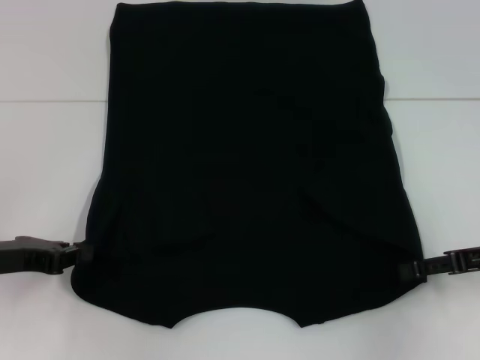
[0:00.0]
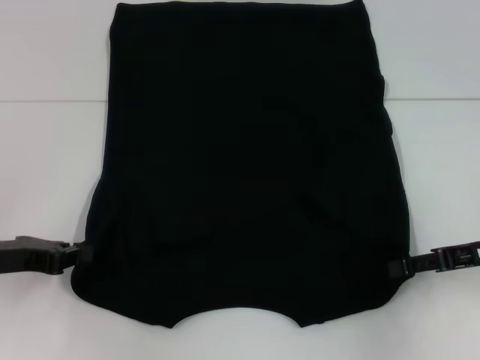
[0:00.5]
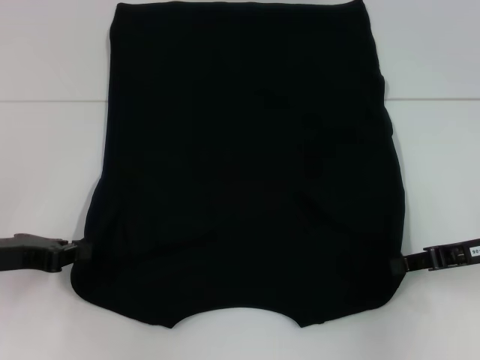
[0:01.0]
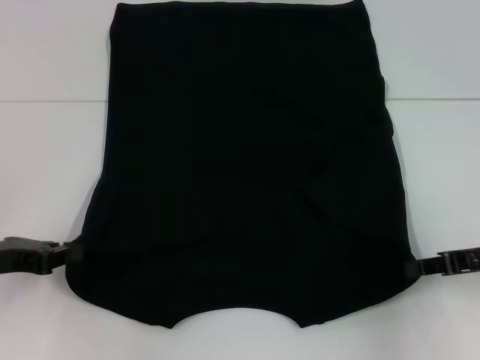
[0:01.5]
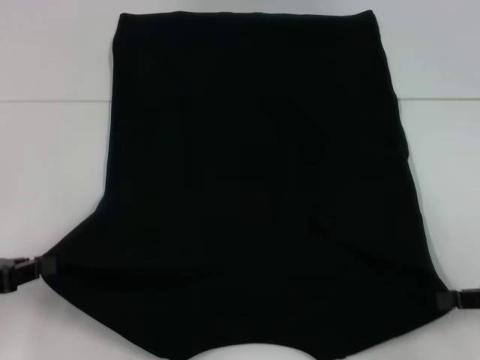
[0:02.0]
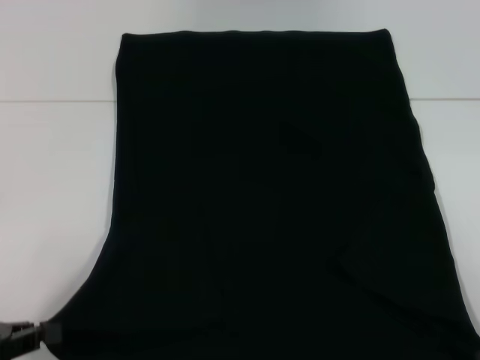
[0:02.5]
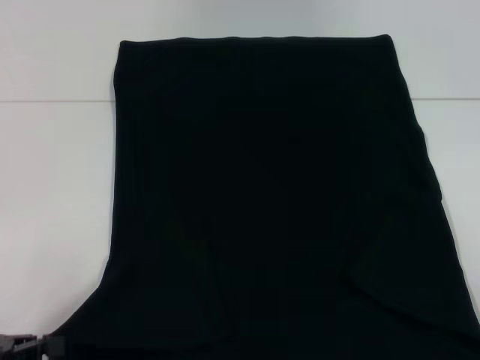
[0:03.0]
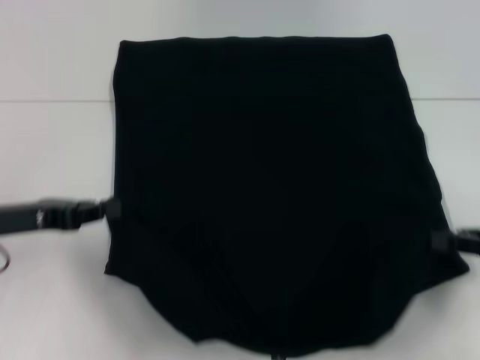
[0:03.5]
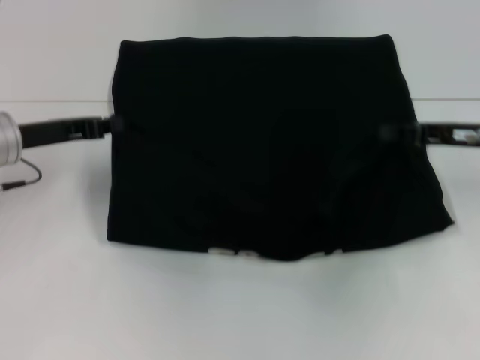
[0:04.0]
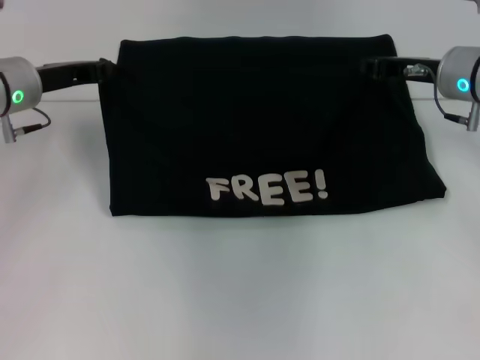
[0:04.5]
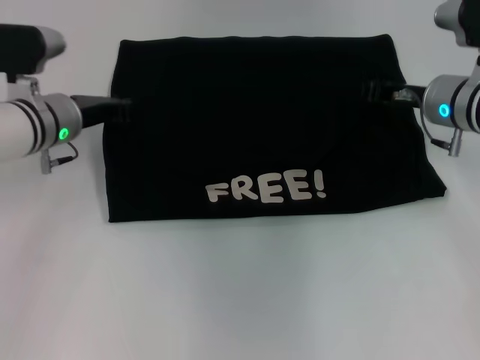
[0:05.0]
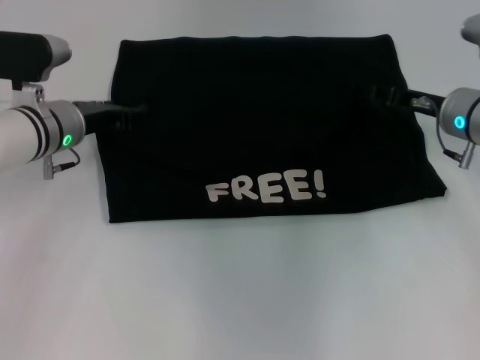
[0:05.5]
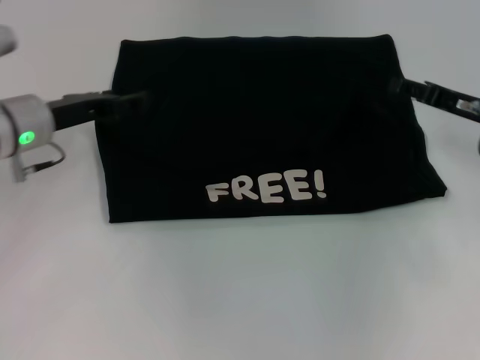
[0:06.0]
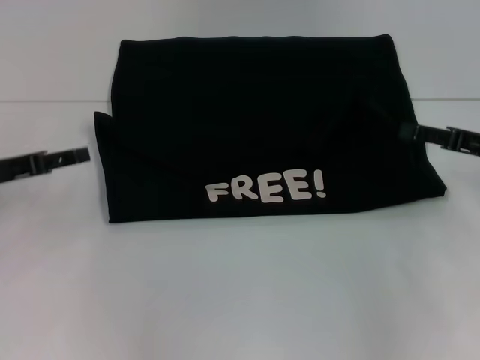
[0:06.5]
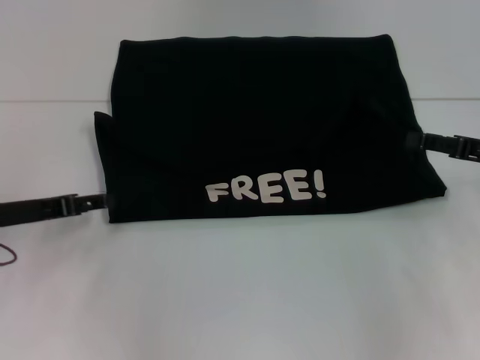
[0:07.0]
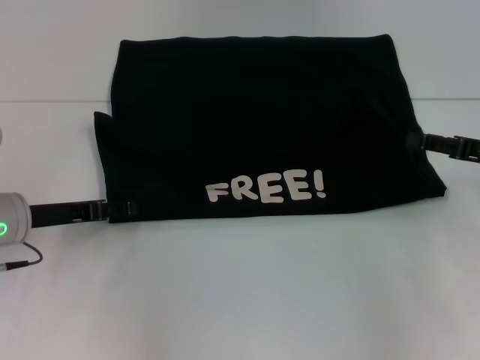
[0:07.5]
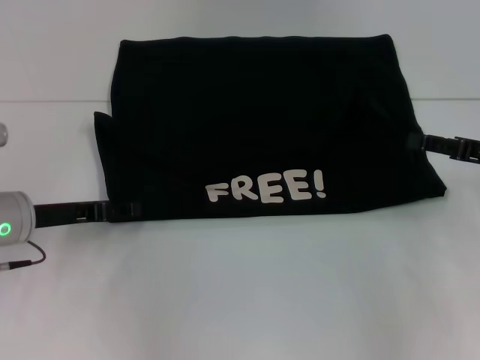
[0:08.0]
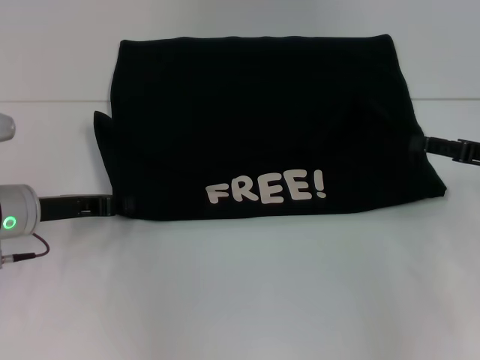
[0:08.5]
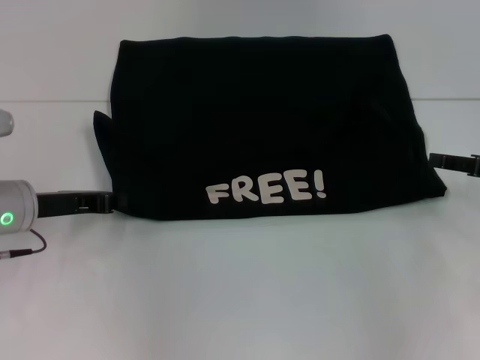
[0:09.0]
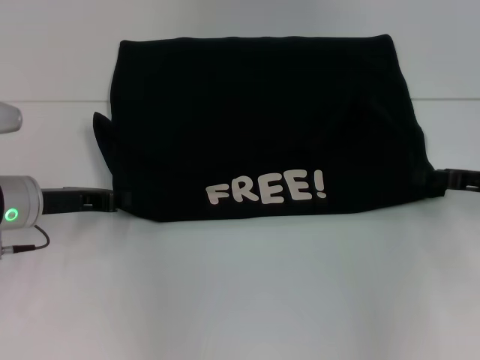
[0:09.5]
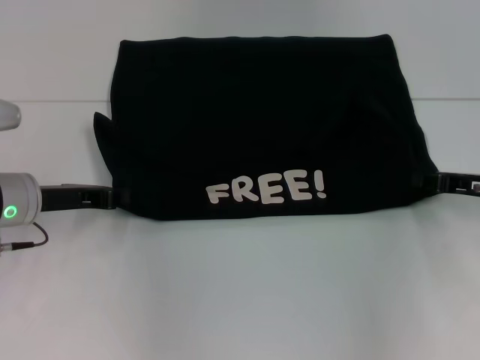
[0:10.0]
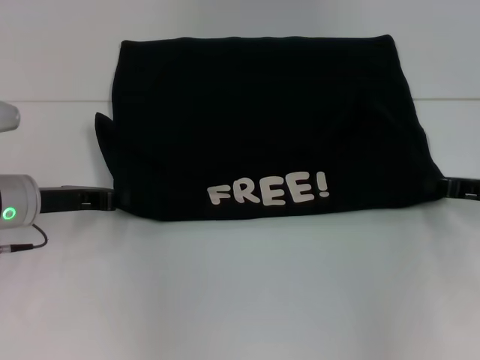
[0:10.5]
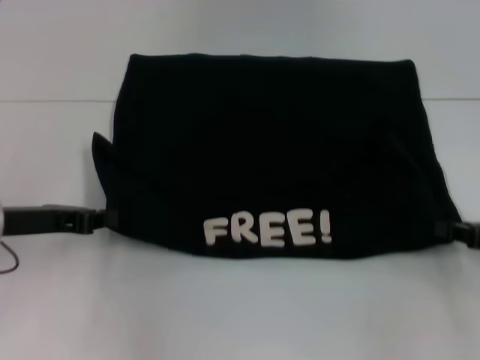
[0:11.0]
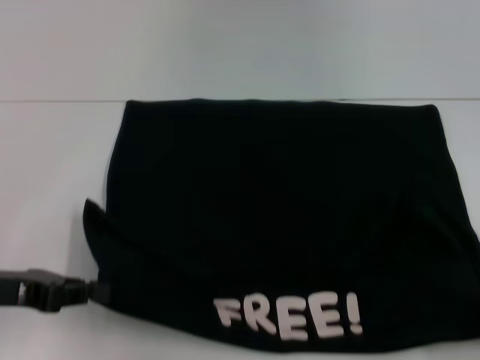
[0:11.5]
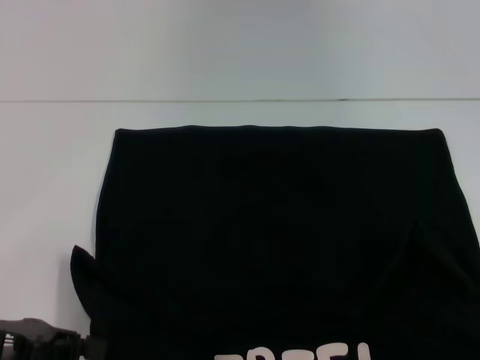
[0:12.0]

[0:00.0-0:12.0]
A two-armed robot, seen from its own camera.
Step, 0:01.0 to 0:05.5: Fold the clothes with your left hand.
Step, 0:01.0 to 0:05.5: Fold the clothes with your right hand.
Step, 0:06.0 to 0:11.5: Pull the clothes with your left hand.
Step, 0:06.0 to 0:11.5: Pull the clothes with your right hand.
0:00.0 to 0:02.0: The right gripper moves approximately 5 cm, and closes. The left gripper shifts by roughly 5 cm.
0:02.0 to 0:04.0: The left gripper heads forward and to the right, covering some 15 cm. Meanwhile the right gripper is displaced forward and to the left by some 15 cm.
0:04.0 to 0:06.0: The right gripper opens up; the left gripper opens.
0:06.0 to 0:08.0: The right gripper ends up some 5 cm from where it was; the left gripper heads backward and downward, covering some 10 cm.
0:08.0 to 0:10.0: The left gripper closes its fingers.
0:10.0 to 0:12.0: The right gripper is displaced backward and to the right by roughly 25 cm, and closes up. Meanwhile the left gripper is displaced backward by roughly 15 cm.

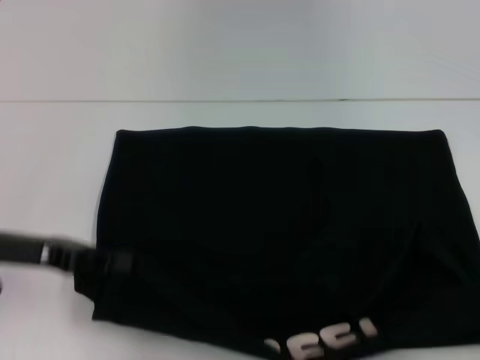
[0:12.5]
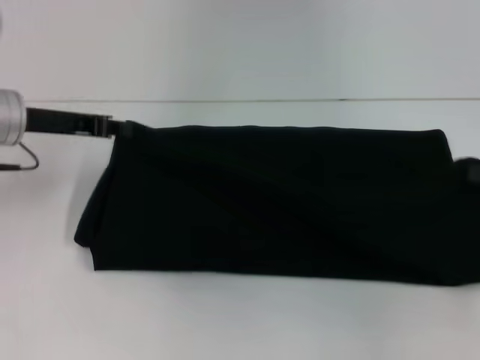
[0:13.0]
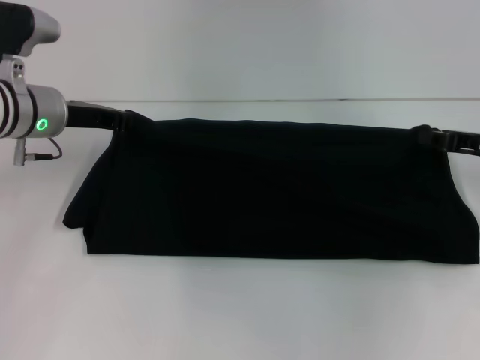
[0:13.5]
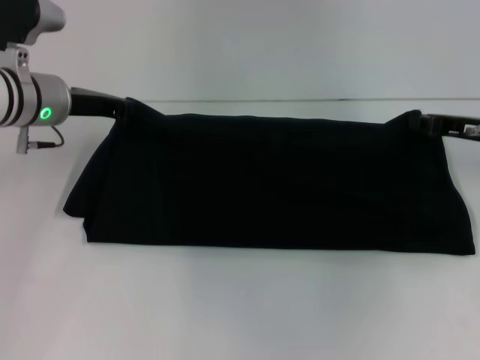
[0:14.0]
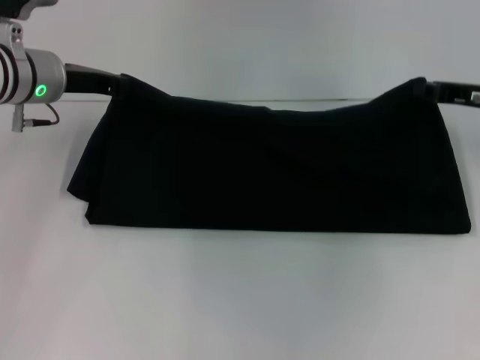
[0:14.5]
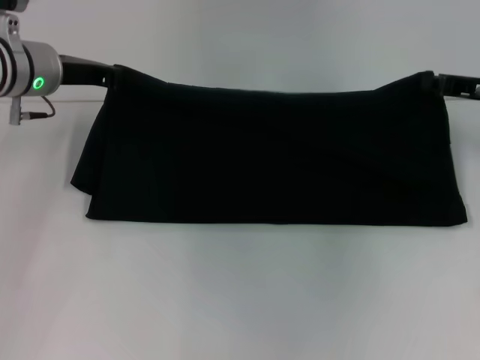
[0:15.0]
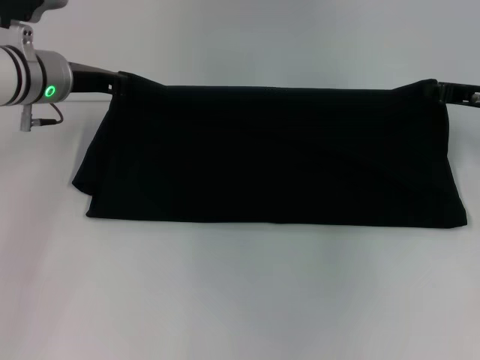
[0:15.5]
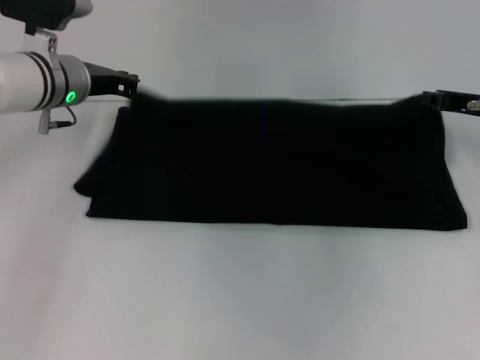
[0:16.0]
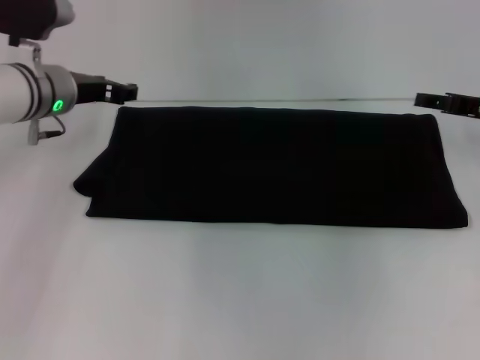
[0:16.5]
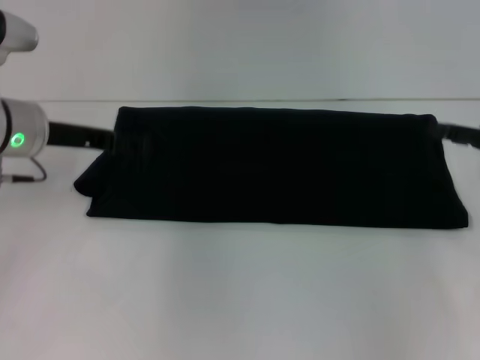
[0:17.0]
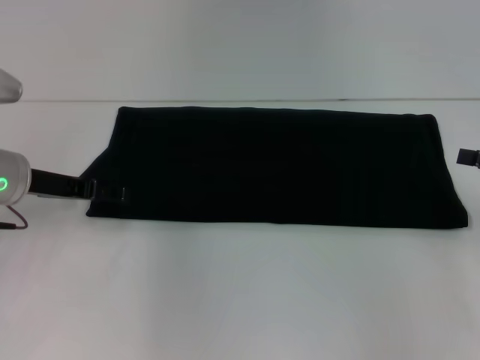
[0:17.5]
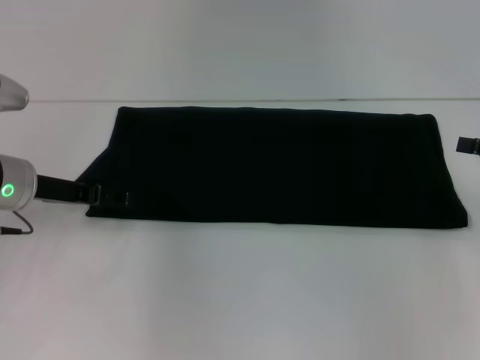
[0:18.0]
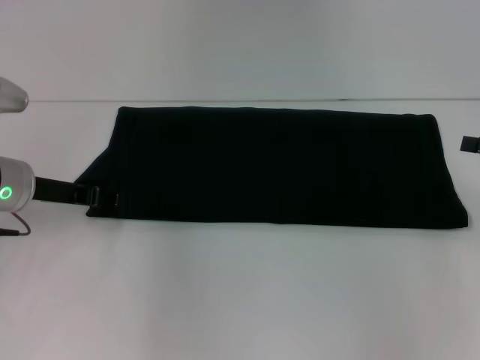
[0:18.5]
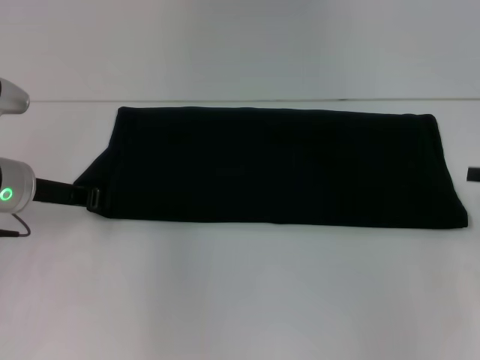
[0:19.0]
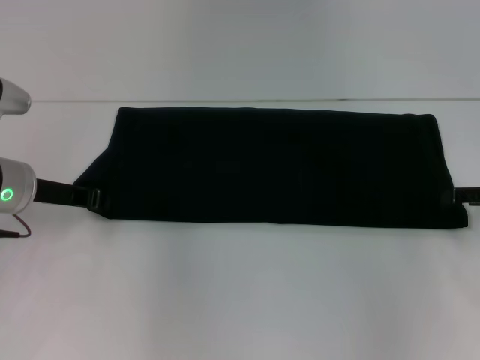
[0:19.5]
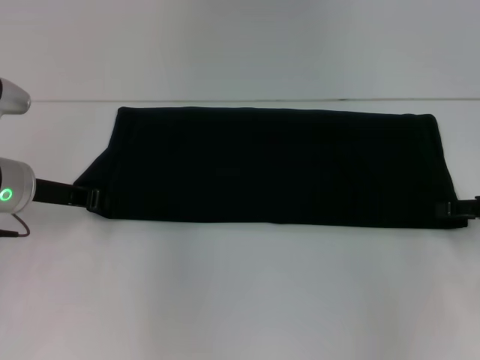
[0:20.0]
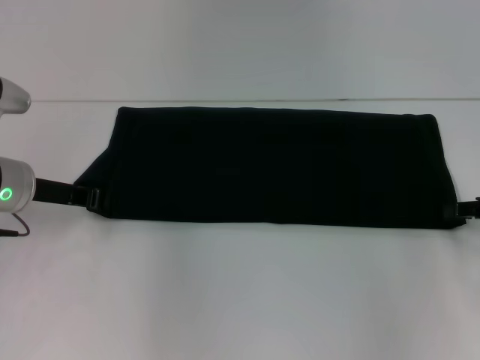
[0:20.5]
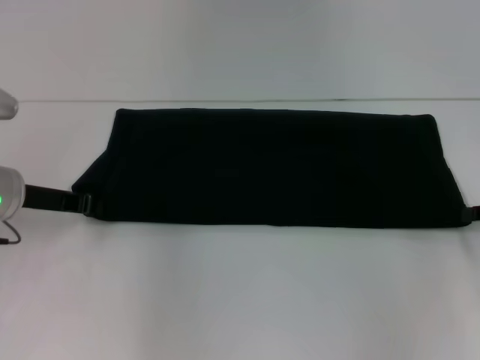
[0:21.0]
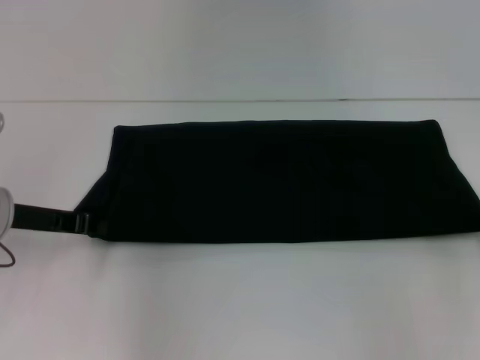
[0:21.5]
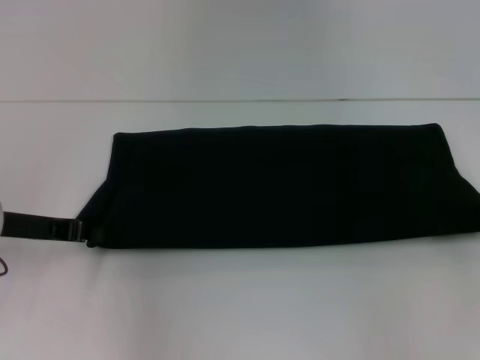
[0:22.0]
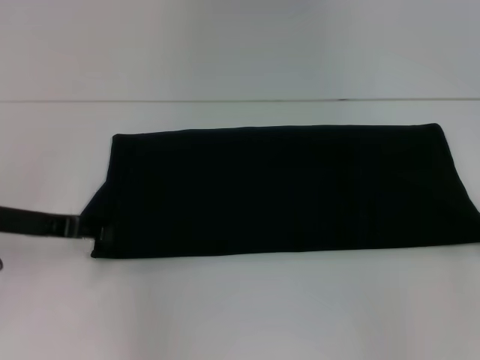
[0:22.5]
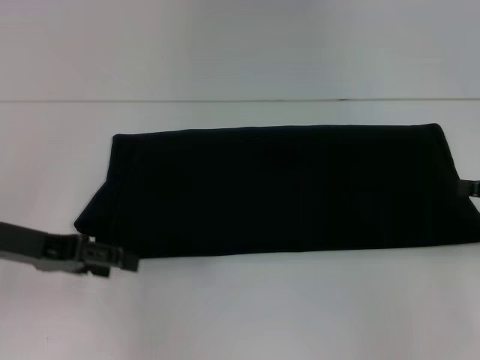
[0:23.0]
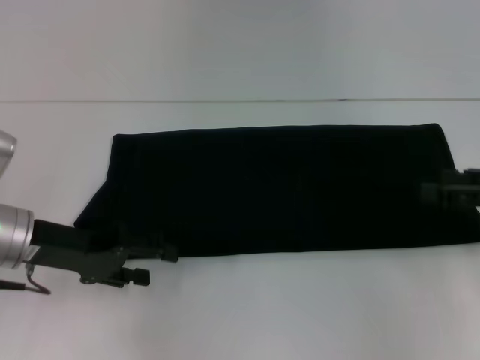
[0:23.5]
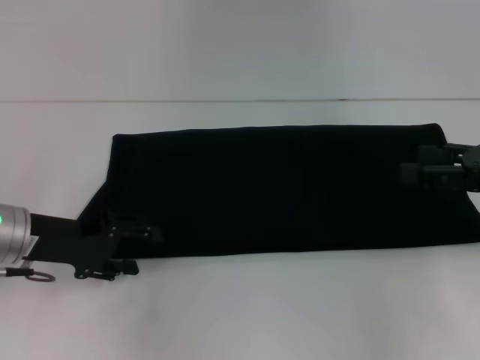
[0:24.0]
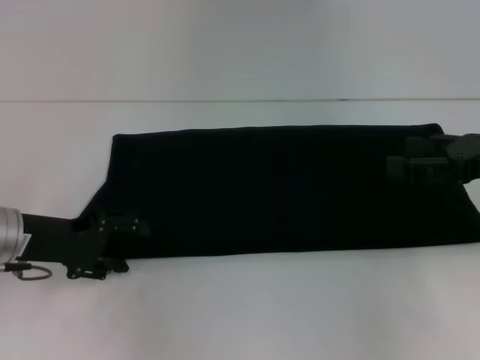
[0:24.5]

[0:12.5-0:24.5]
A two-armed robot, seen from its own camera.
Step, 0:12.5 to 0:14.0: Fold the clothes with your right hand.
0:12.5 to 0:14.5: The right gripper heads forward and to the left, covering approximately 25 cm, while the left gripper is displaced forward by some 15 cm.
0:14.5 to 0:16.5: The left gripper opens; the right gripper opens its fingers.
0:16.5 to 0:18.5: The right gripper travels backward and to the right by roughly 10 cm, while the left gripper moves backward, approximately 10 cm, and opens up.
0:20.5 to 0:22.5: The left gripper shifts by roughly 5 cm; the right gripper shifts by roughly 5 cm.
0:22.5 to 0:24.5: The left gripper opens its fingers. The right gripper shifts approximately 10 cm to the left, and opens up.

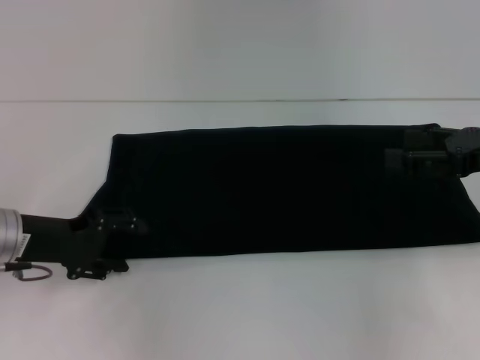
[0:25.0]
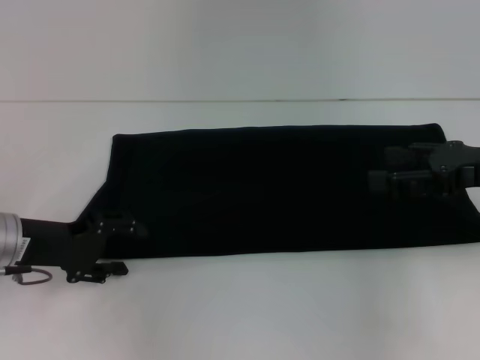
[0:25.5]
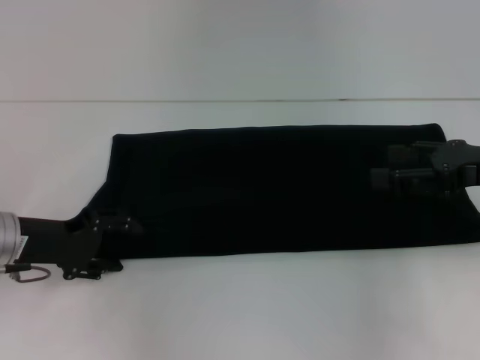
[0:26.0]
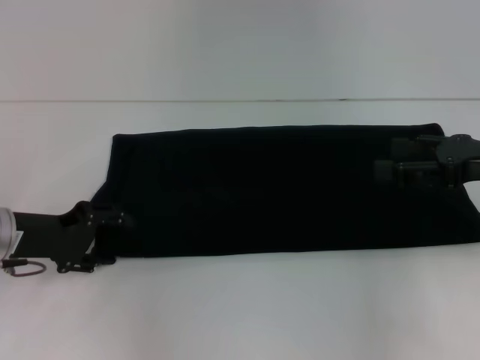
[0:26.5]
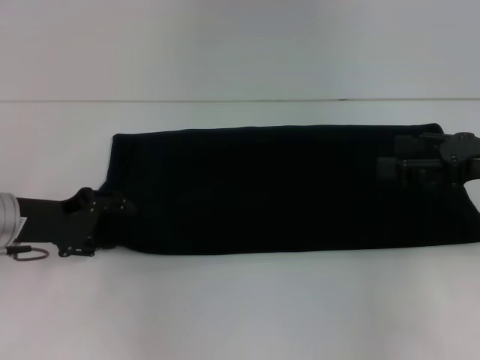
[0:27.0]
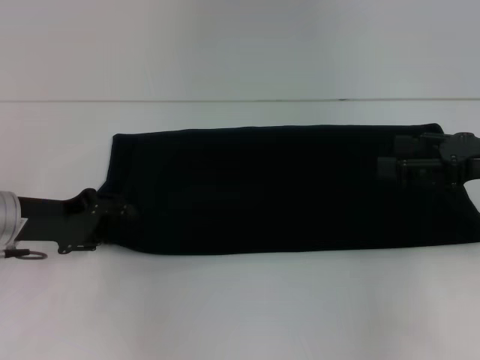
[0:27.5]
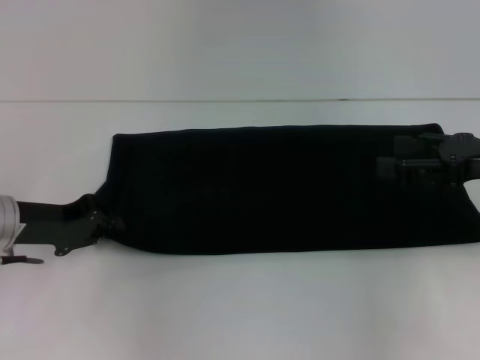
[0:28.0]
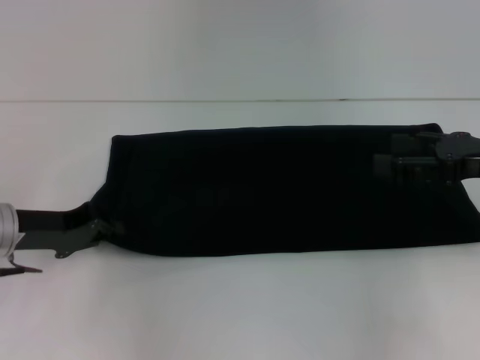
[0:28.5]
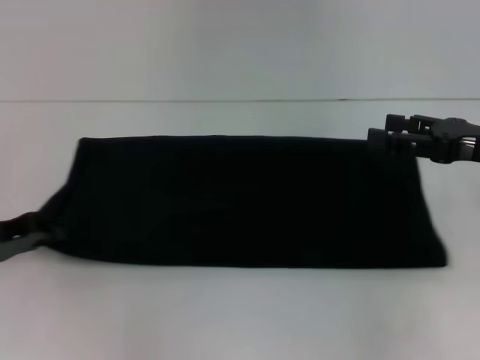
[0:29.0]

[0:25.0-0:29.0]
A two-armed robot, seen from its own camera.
0:25.0 to 0:27.0: The grippers stay close to where they were, moving slightly.
0:27.0 to 0:29.0: The left gripper heads to the left, covering approximately 5 cm, and closes its fingers.
